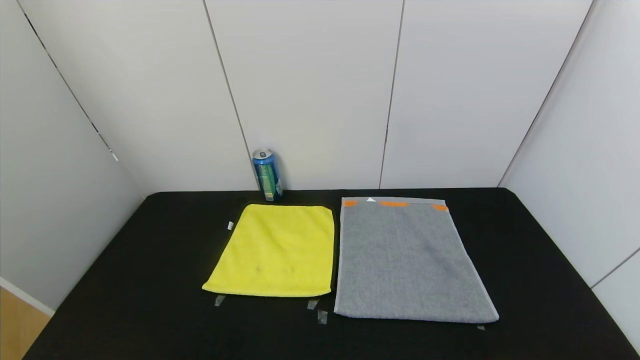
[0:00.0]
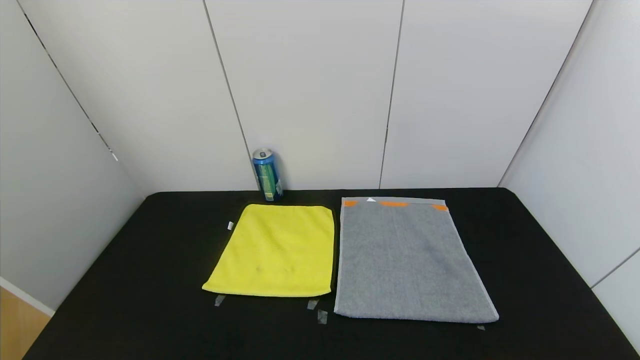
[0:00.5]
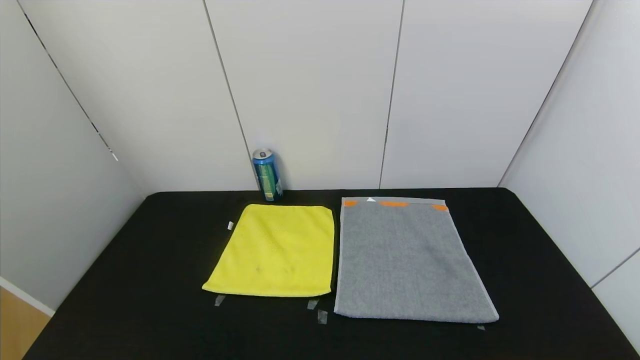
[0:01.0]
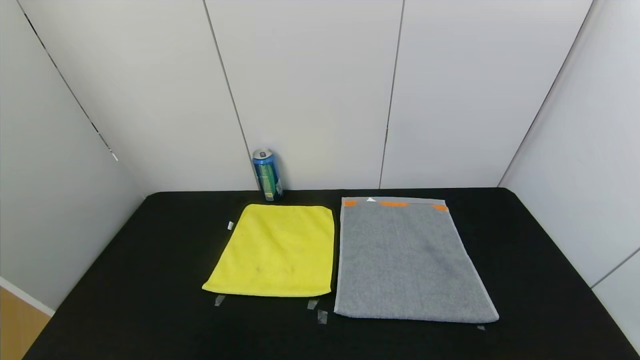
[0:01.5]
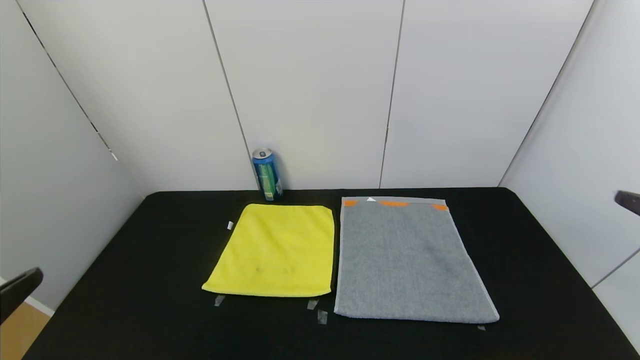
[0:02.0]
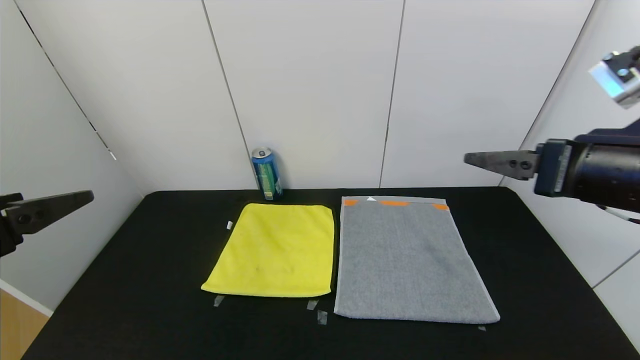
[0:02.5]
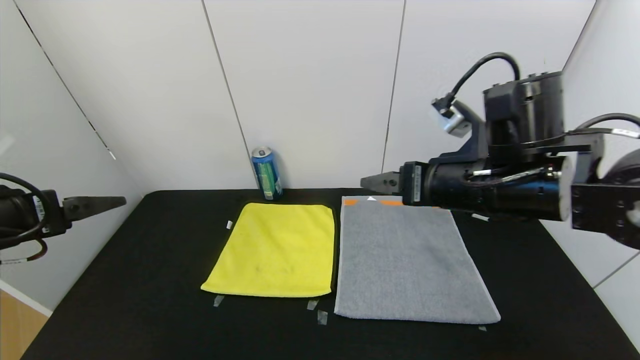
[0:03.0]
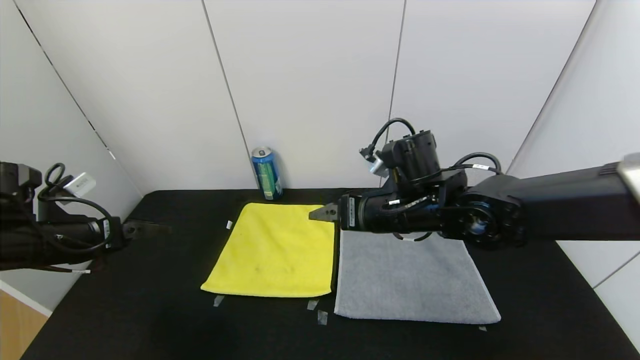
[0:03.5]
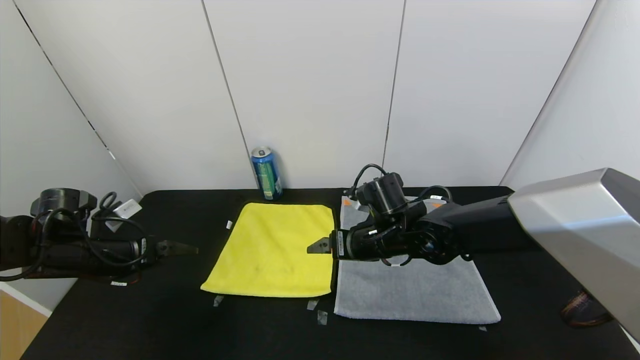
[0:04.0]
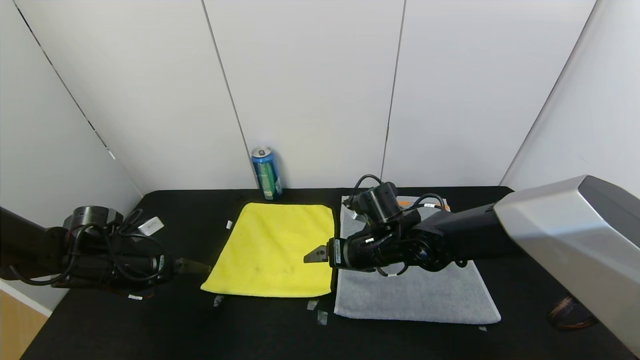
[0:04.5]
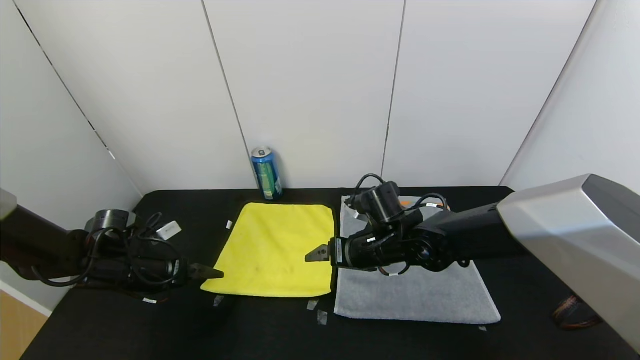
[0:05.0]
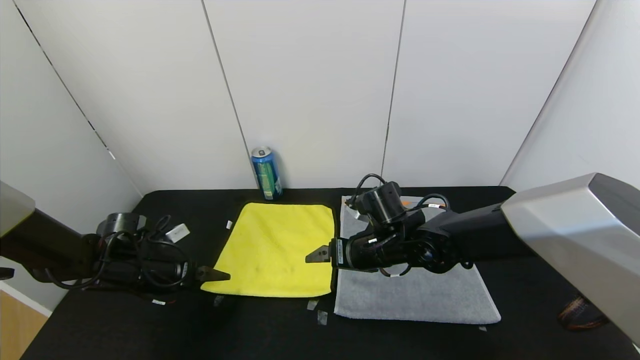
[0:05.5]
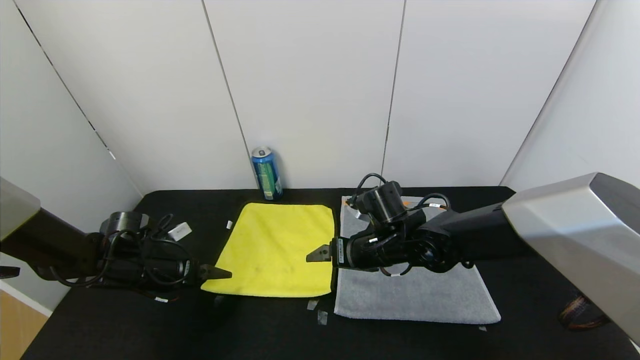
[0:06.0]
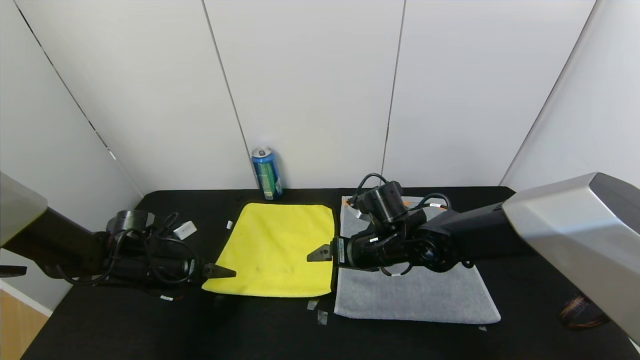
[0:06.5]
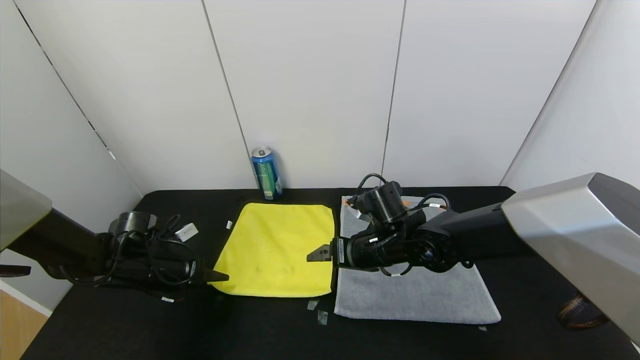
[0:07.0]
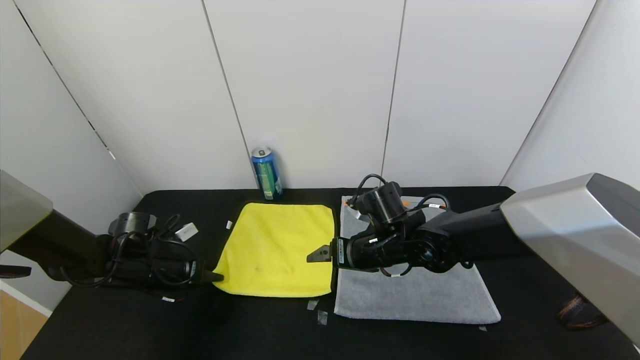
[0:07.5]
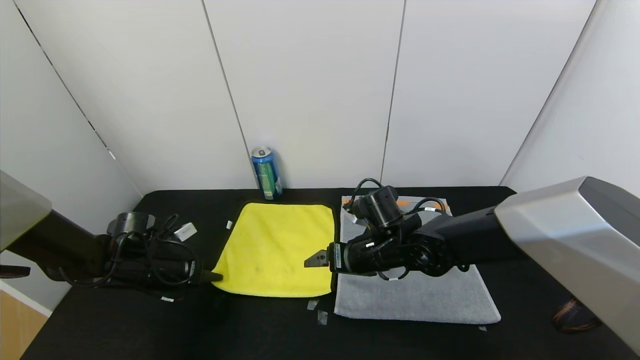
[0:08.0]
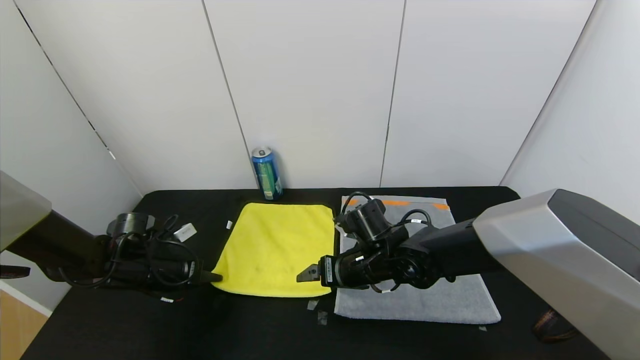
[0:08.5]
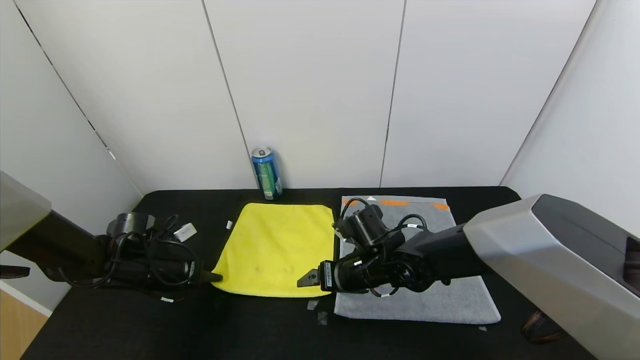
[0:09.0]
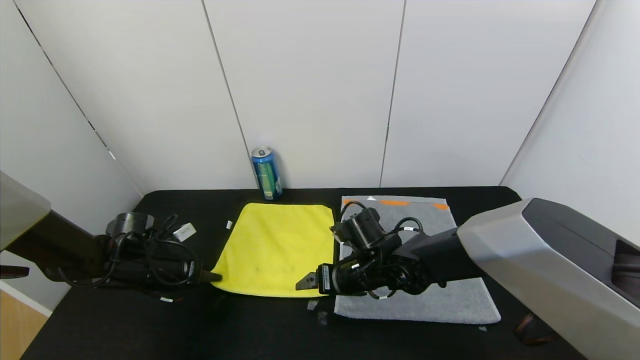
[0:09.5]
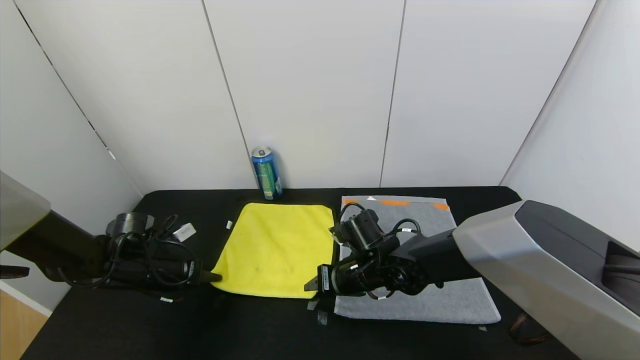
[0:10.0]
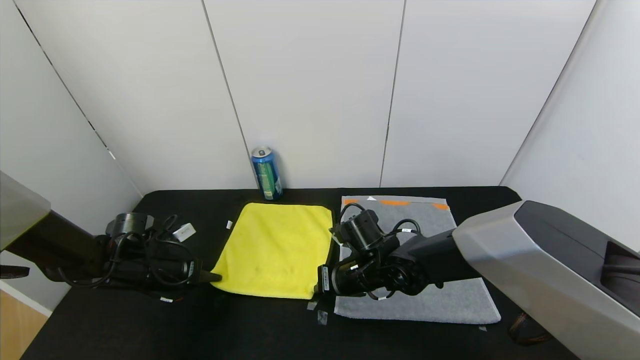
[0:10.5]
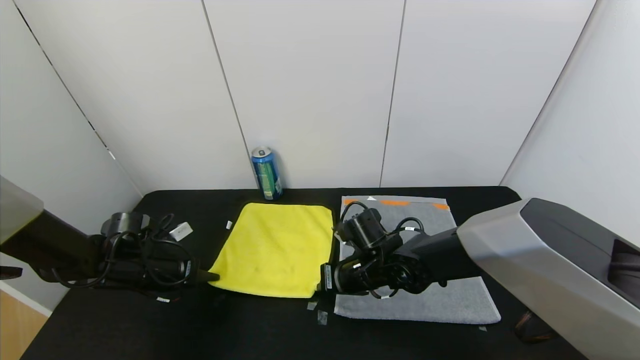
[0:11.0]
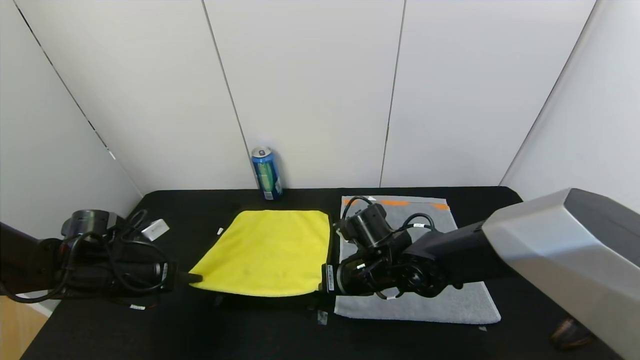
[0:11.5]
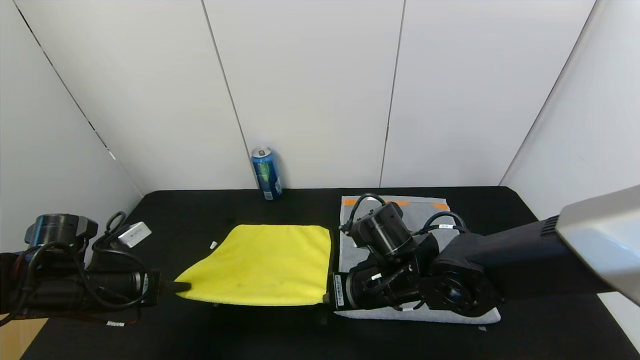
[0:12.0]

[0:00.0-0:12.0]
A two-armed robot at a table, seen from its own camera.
Task of the whole recording: Use the gripper to fold the yellow towel and grey towel in half twice,then put the yellow towel on the grey towel.
0:02.0 to 0:04.0: The left gripper travels forward and downward by roughly 30 cm, while the right gripper shifts roughly 40 cm forward, to the left and downward.
0:04.0 to 0:06.0: The left gripper shifts about 5 cm downward.
0:06.0 to 0:08.0: The left gripper closes up.
0:08.0 to 0:10.0: The right gripper closes up.
0:10.0 to 0:12.0: The two grippers go about 10 cm backward and upward. The right gripper closes its fingers.

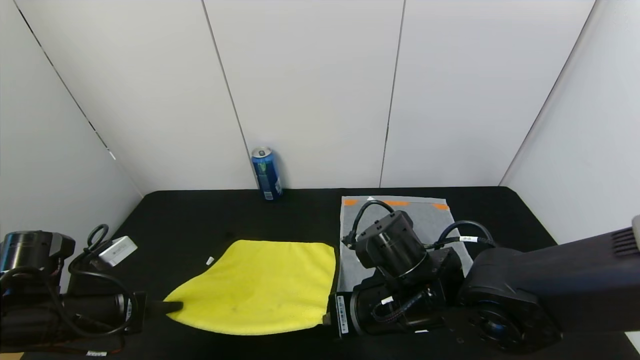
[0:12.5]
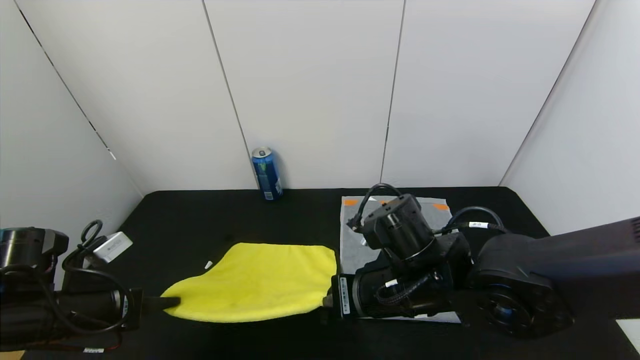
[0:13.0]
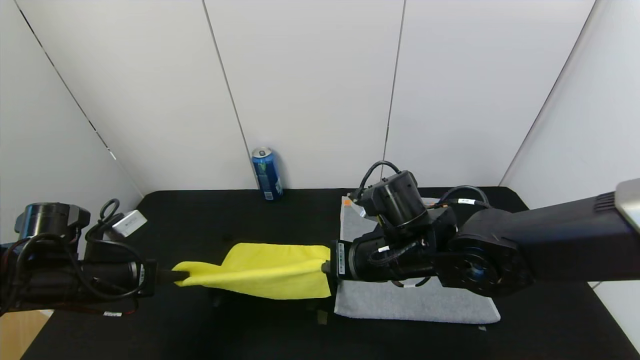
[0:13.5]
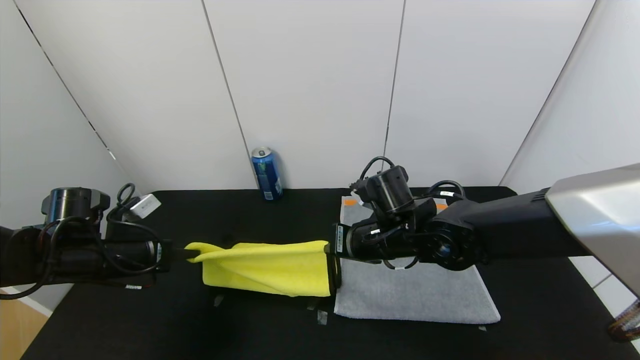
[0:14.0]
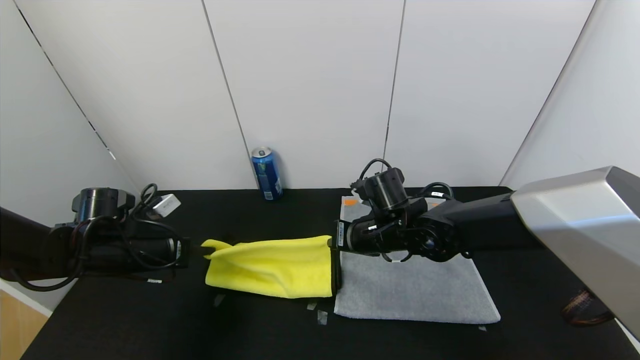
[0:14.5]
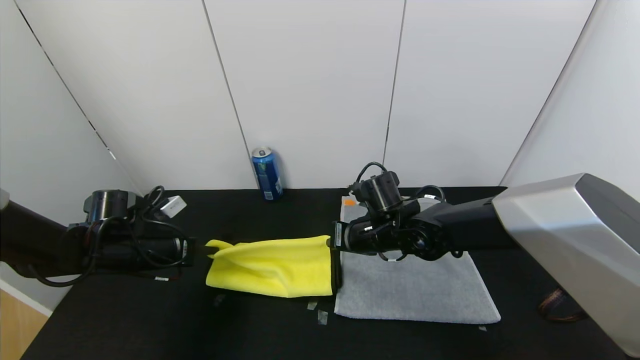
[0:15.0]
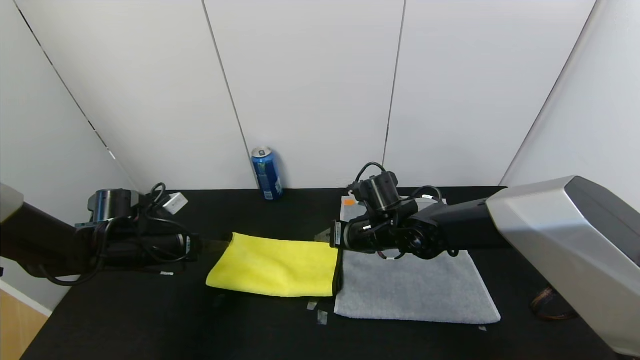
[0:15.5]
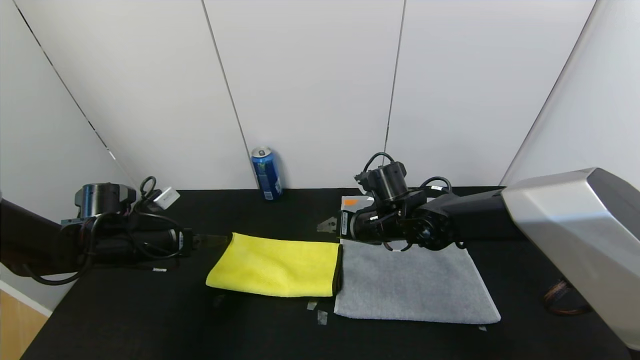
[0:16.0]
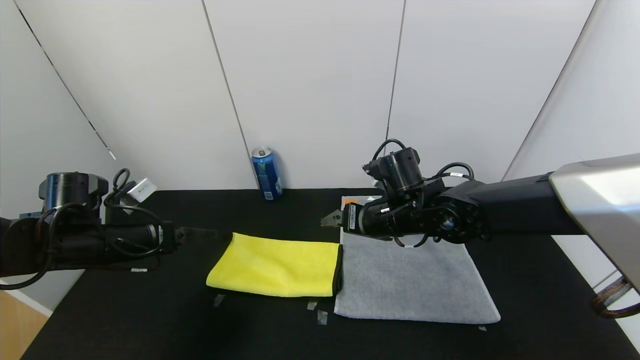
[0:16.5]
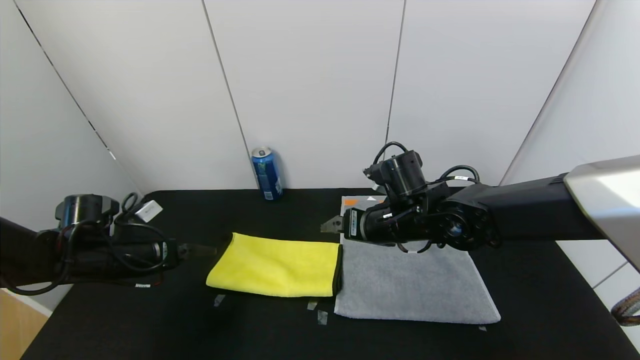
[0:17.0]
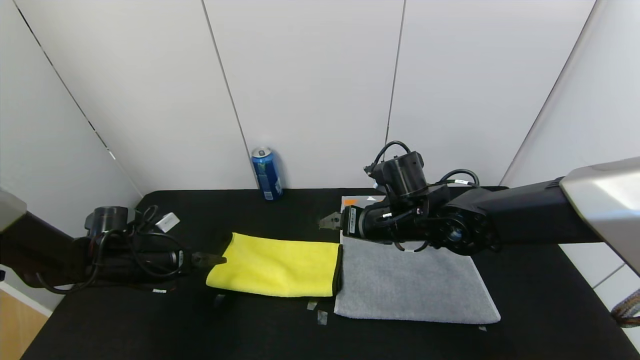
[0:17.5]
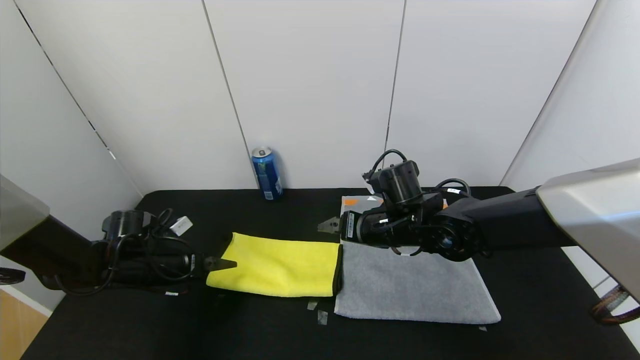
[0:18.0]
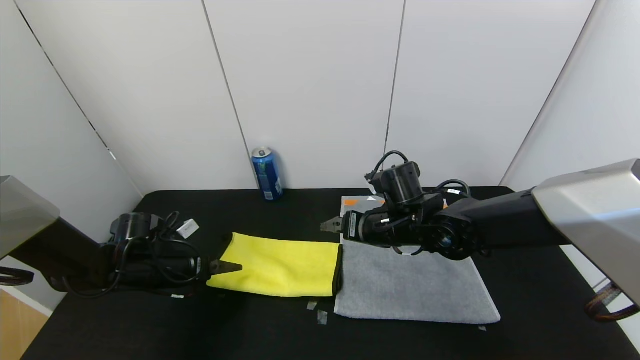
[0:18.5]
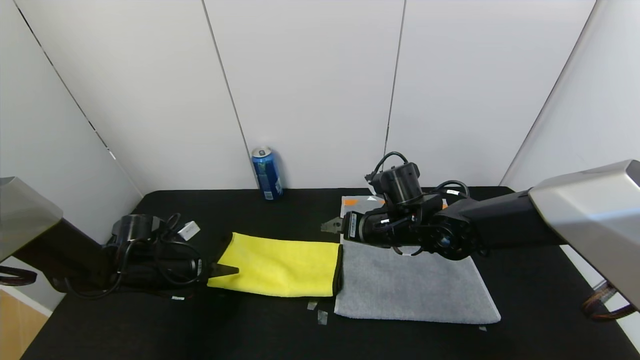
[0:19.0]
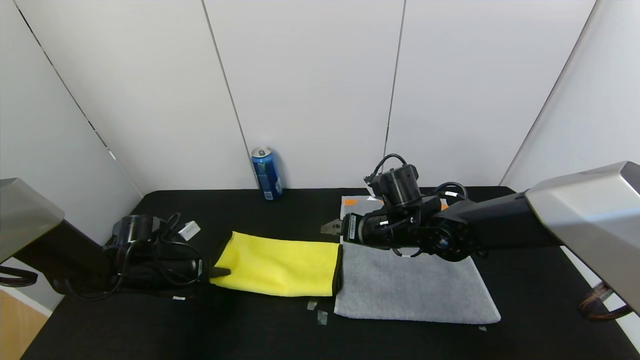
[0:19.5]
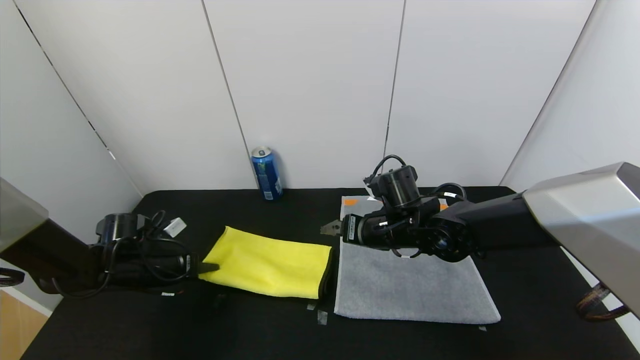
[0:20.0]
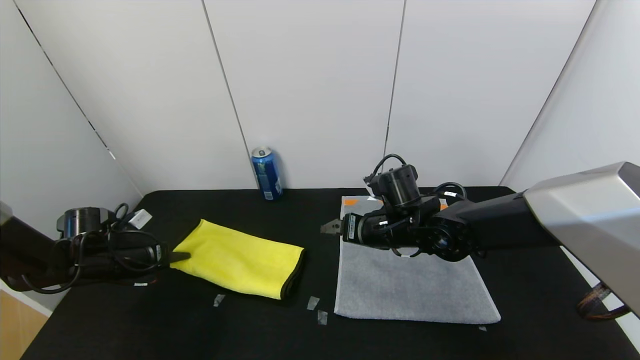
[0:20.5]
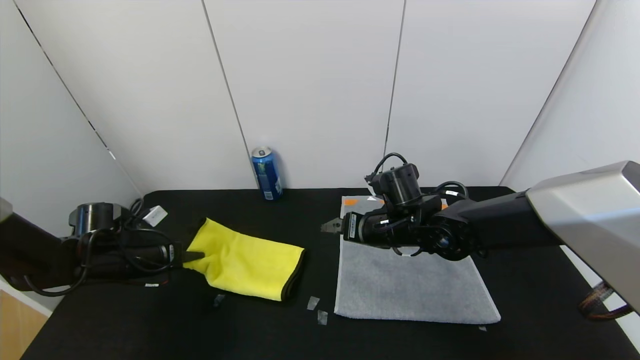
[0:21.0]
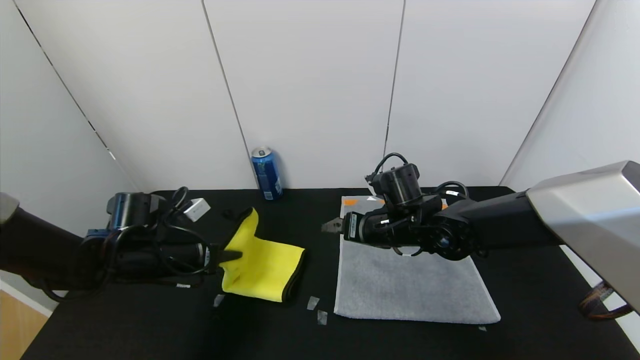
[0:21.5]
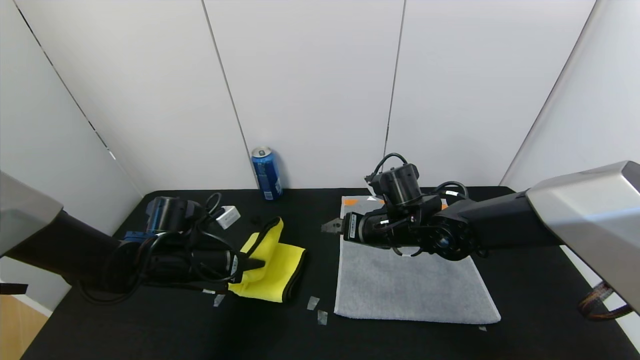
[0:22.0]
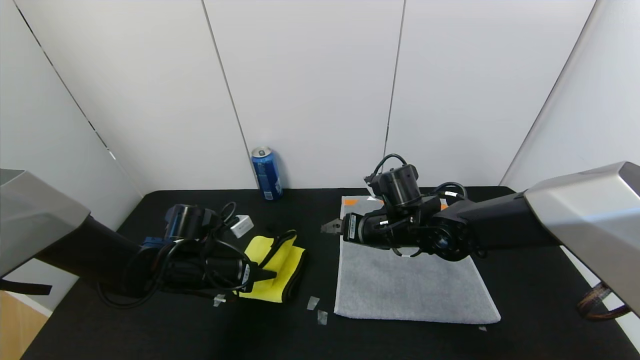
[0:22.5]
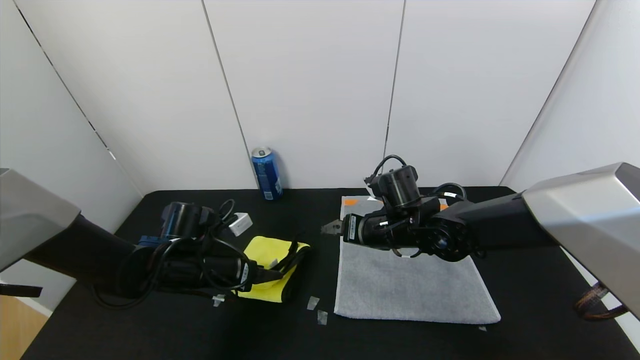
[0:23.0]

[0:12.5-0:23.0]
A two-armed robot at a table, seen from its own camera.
Task of the whole recording: Use the gripper to fold the yellow towel and grey towel in half twice,then put the yellow towel on the grey towel.
Step, 0:12.5 to 0:15.0: Fold the yellow towel upwards with the left gripper.
Step, 0:12.5 to 0:15.0: Fold the yellow towel upwards with the right gripper.
0:12.5 to 0:14.5: Both grippers travel together forward, approximately 10 cm.
0:14.5 to 0:16.5: The right gripper opens up. Meanwhile the left gripper opens up.
0:16.5 to 0:19.0: The left gripper heads downward, covering roughly 10 cm.
0:19.0 to 0:21.0: The left gripper closes up.
0:21.0 to 0:23.0: The left gripper shifts some 15 cm to the right, and opens its fingers.
